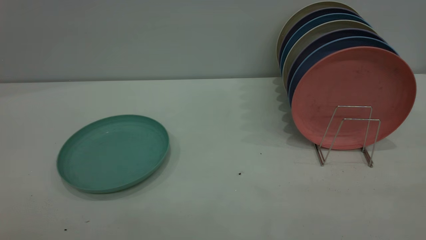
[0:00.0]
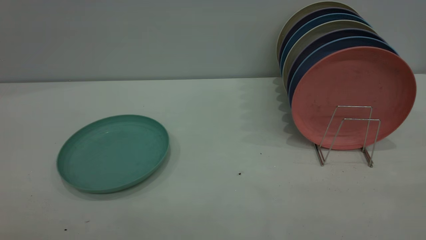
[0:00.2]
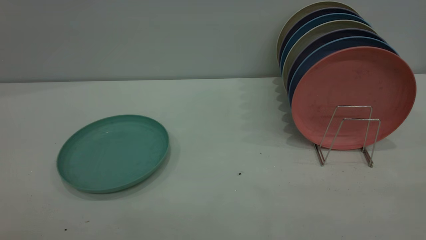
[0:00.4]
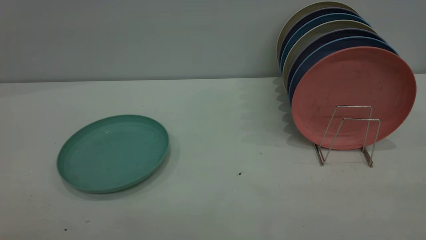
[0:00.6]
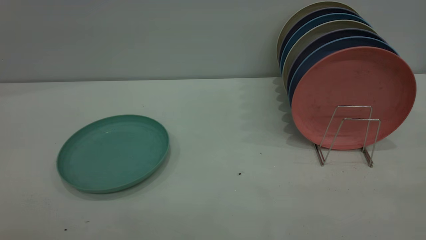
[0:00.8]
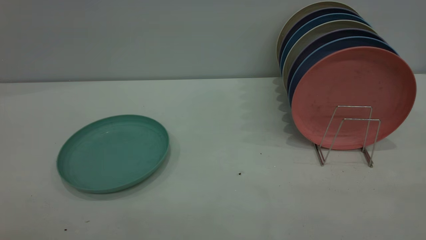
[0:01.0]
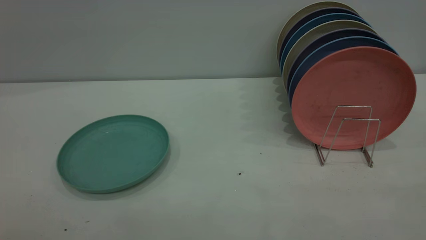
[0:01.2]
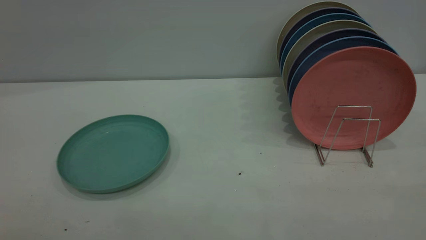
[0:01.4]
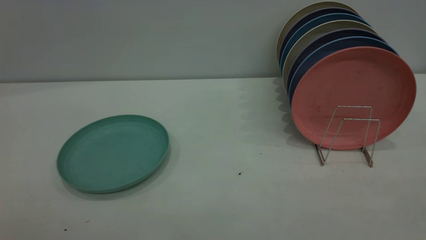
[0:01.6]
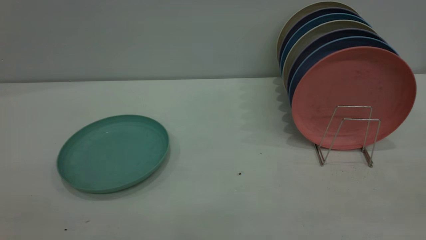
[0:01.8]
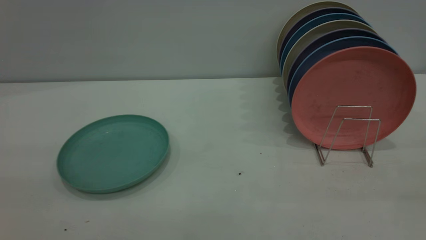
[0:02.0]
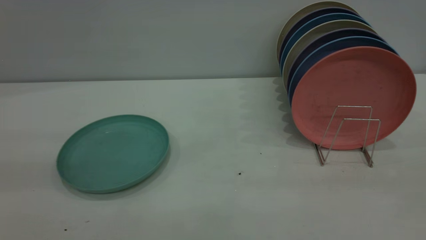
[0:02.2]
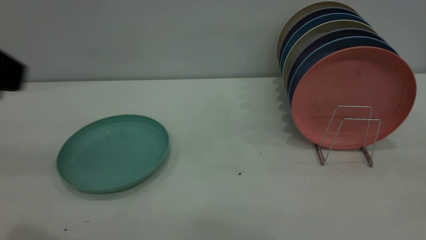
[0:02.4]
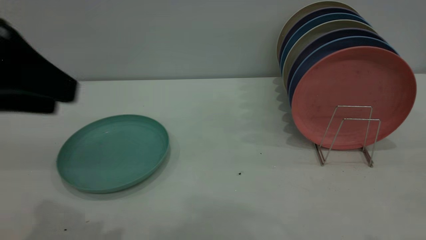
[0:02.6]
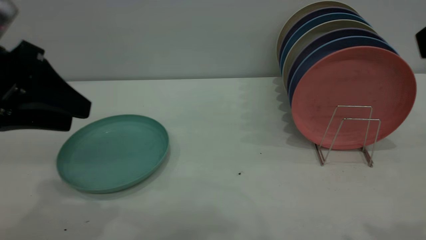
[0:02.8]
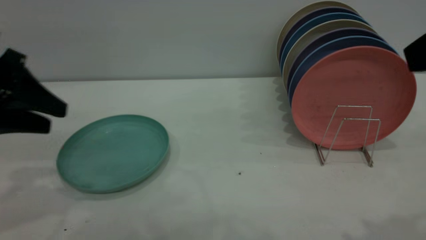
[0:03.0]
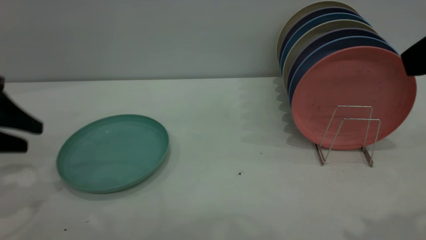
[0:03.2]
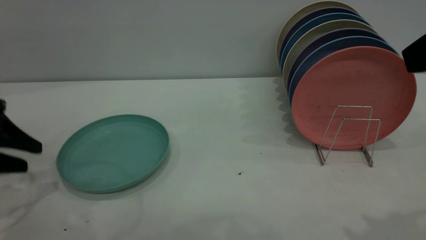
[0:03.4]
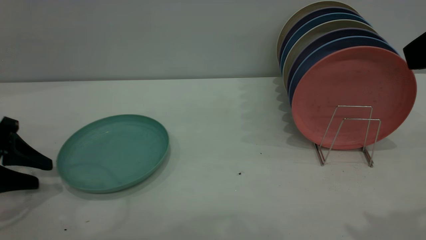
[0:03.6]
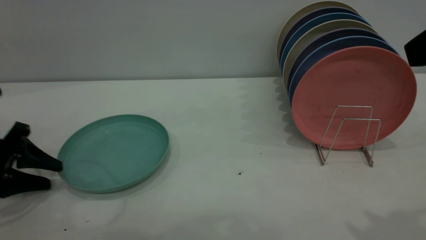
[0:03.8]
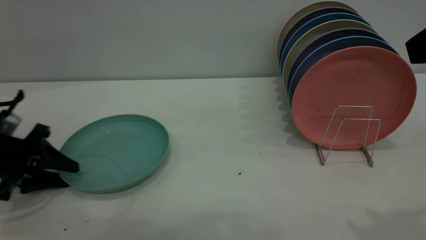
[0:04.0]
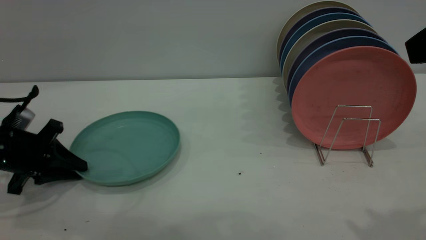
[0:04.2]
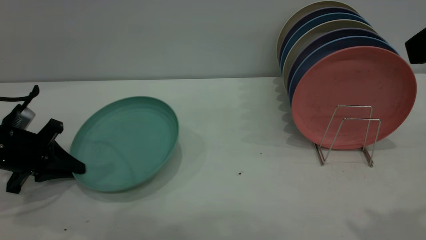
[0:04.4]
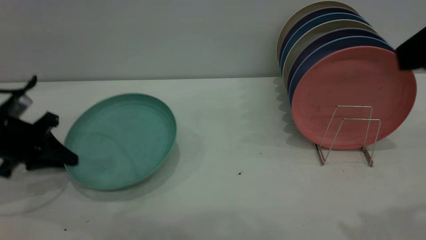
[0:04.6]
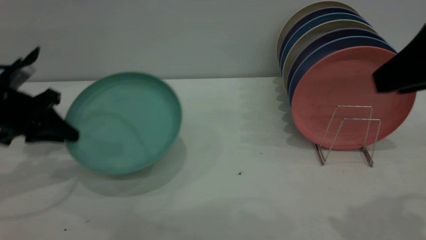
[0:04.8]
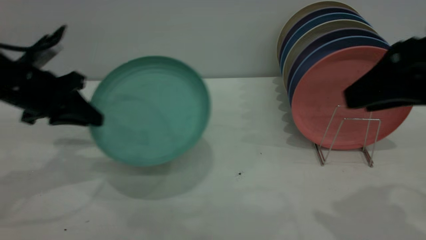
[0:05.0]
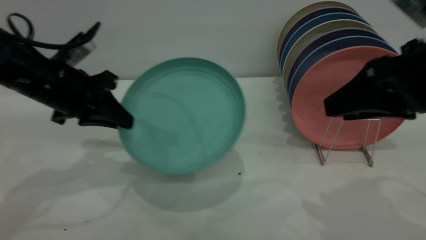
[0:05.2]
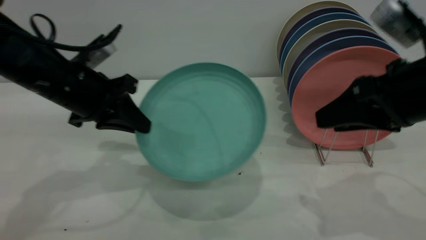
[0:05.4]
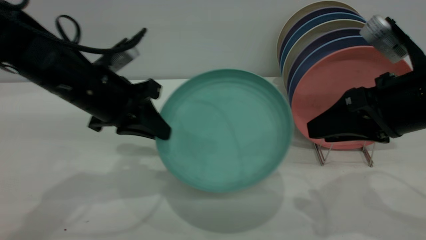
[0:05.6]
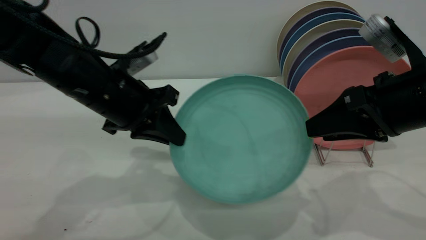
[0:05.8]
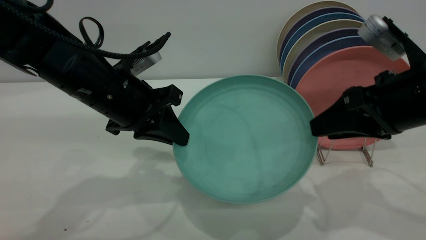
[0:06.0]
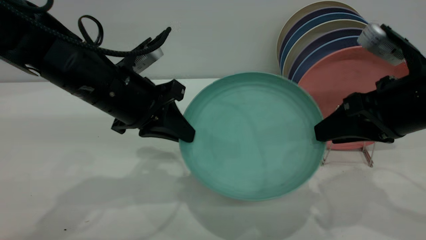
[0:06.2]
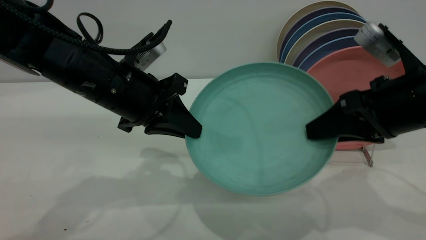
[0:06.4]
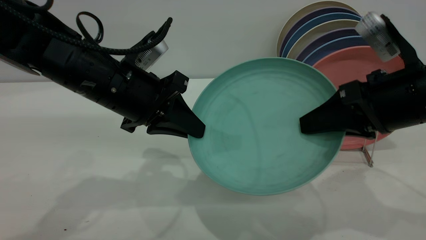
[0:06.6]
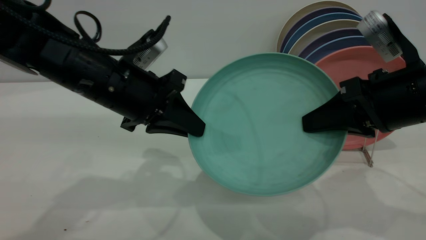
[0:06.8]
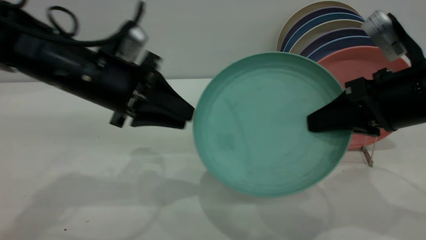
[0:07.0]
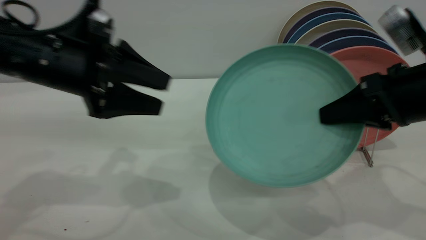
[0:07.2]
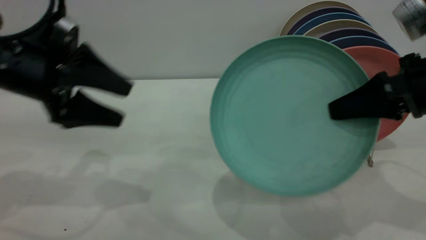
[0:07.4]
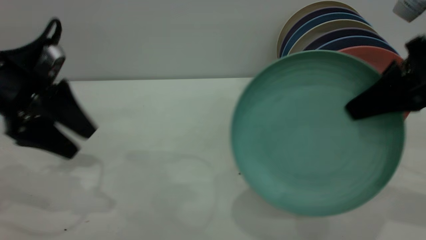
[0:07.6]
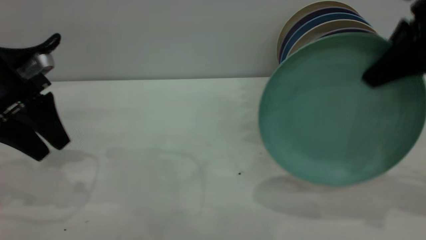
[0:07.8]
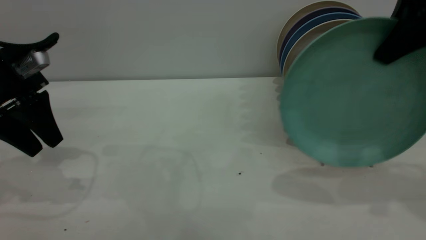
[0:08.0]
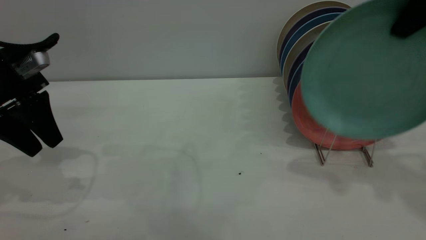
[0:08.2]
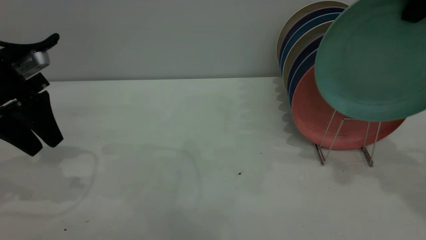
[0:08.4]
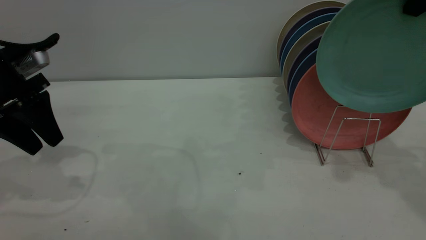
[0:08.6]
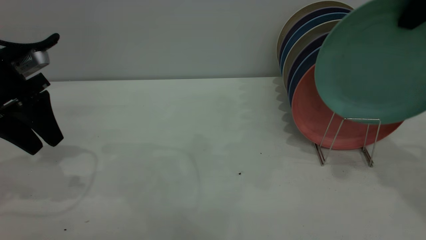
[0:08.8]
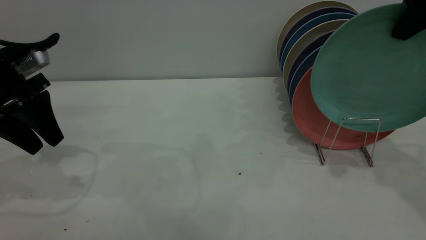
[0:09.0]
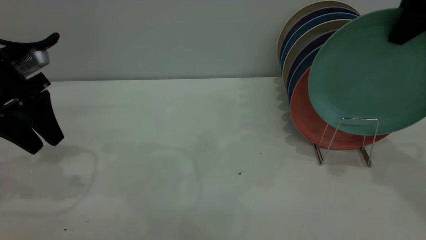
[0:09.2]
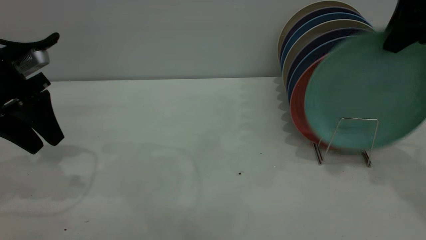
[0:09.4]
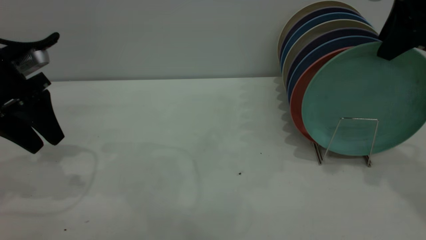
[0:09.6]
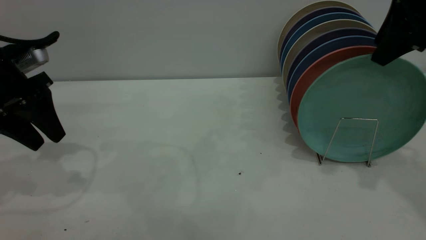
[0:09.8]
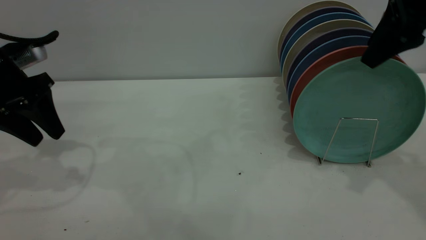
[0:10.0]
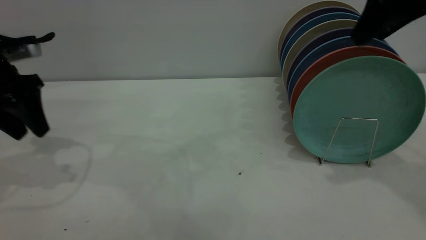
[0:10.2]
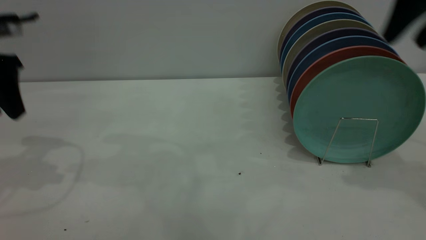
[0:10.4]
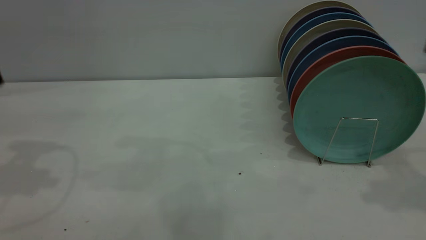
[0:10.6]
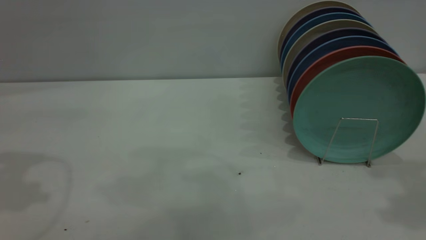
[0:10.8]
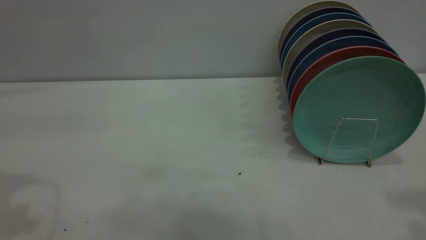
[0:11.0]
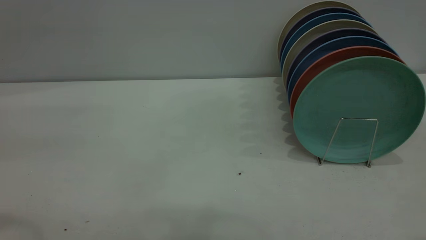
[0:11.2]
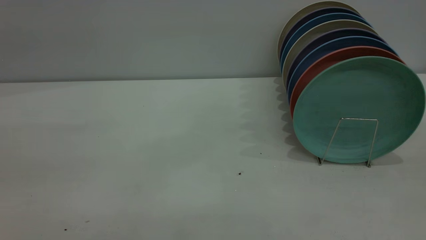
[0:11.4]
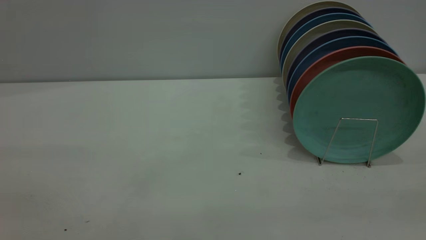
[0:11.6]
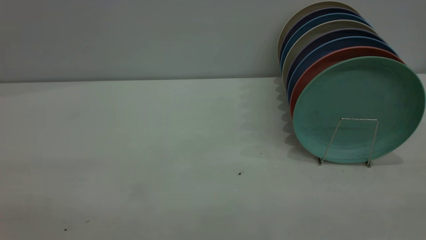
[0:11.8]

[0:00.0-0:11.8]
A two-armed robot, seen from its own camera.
Task of the whole recording: the left gripper grasp the green plate, the left gripper pass the green plate to the right gripper, and the right gripper place the green plate on the plate rack.
Step, 0:00.0 to 0:04.6: Pick up the plate with the left gripper.
Step, 0:04.8 to 0:07.0: Pass the plate from the left gripper to the right gripper.
Step, 0:07.4 to 0:10.4: Place the plate on the shelf.
0:00.0 to 0:01.4: Neither gripper changes place.
0:01.4 to 0:03.0: The left gripper goes about 35 cm forward and downward.
0:03.0 to 0:04.4: The left gripper goes about 15 cm downward, and closes.
0:04.4 to 0:06.0: The left gripper is displaced to the right and upward by approximately 20 cm. The right gripper is displaced downward and forward by about 15 cm.
0:06.0 to 0:07.4: The left gripper shifts some 10 cm to the left, and opens its fingers. Meanwhile the right gripper closes its fingers.
0:07.4 to 0:08.8: The right gripper heads upward and forward, covering approximately 15 cm, while the left gripper is displaced to the left by roughly 5 cm.
0:08.8 to 0:10.4: The right gripper opens up. The left gripper shifts about 5 cm upward.
0:10.4 to 0:11.8: Both grippers move backward, some 30 cm.
